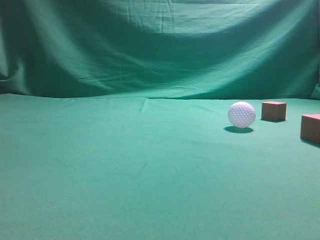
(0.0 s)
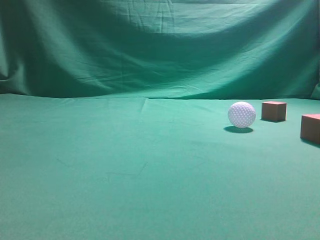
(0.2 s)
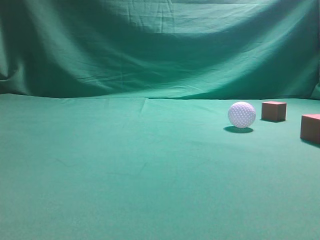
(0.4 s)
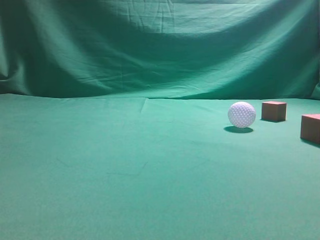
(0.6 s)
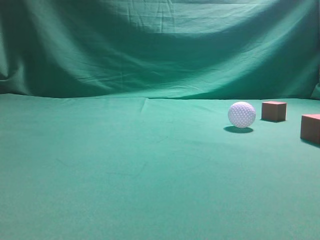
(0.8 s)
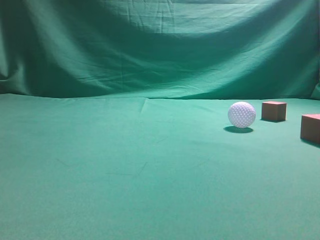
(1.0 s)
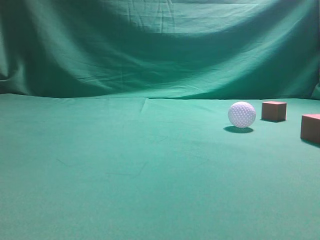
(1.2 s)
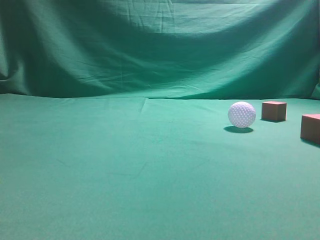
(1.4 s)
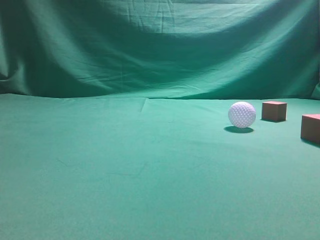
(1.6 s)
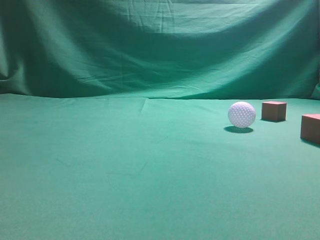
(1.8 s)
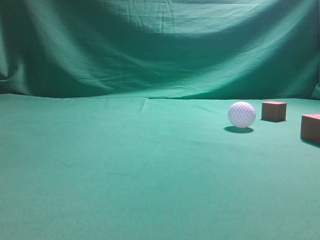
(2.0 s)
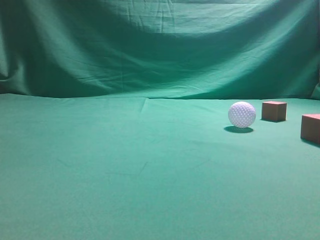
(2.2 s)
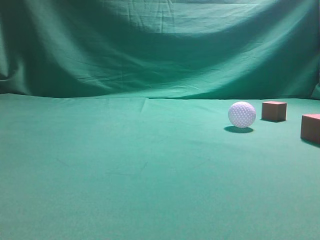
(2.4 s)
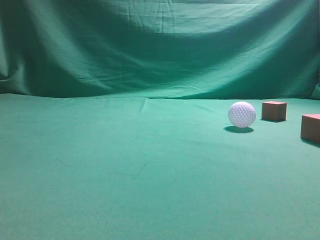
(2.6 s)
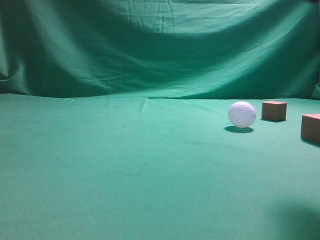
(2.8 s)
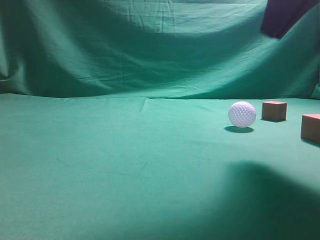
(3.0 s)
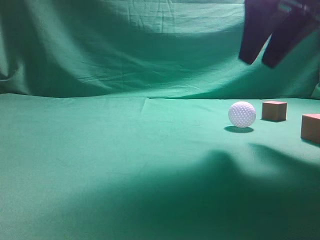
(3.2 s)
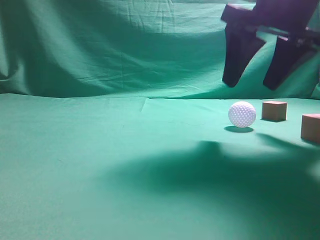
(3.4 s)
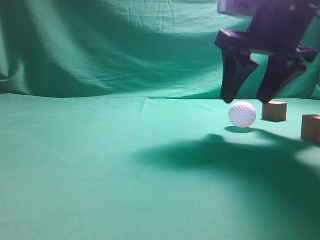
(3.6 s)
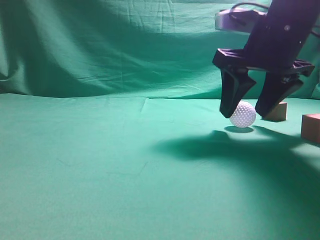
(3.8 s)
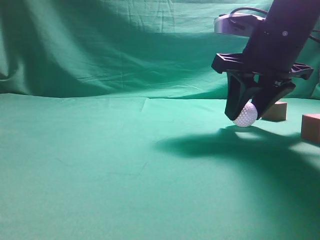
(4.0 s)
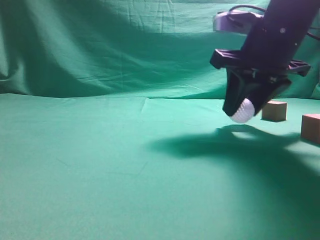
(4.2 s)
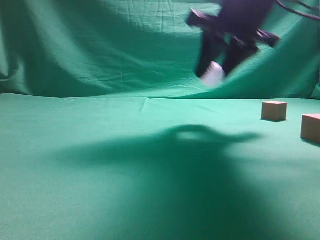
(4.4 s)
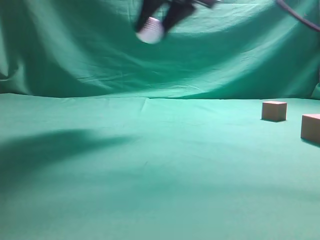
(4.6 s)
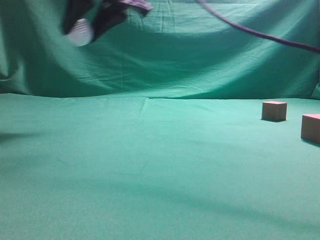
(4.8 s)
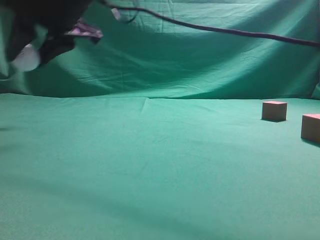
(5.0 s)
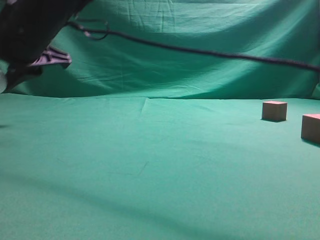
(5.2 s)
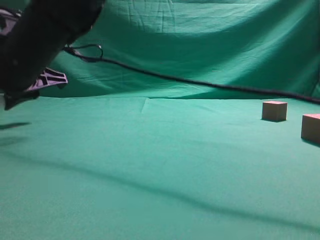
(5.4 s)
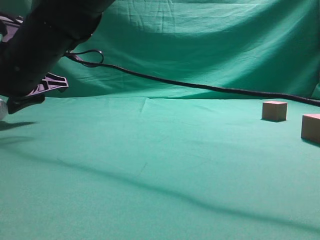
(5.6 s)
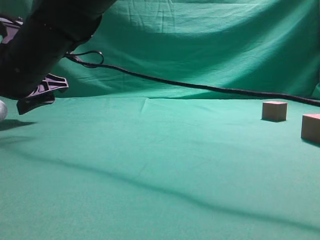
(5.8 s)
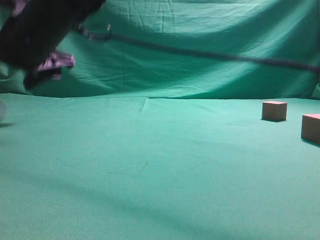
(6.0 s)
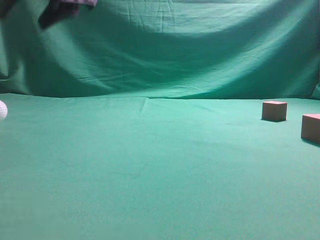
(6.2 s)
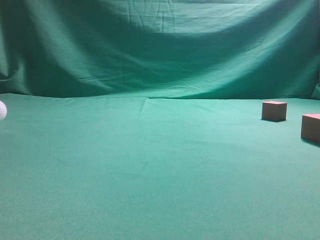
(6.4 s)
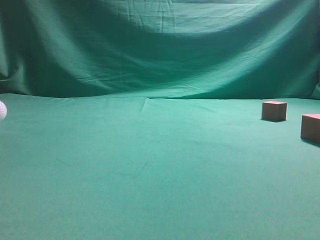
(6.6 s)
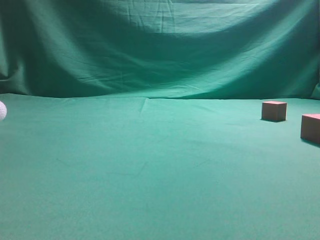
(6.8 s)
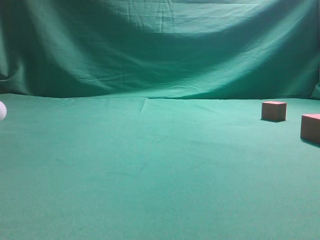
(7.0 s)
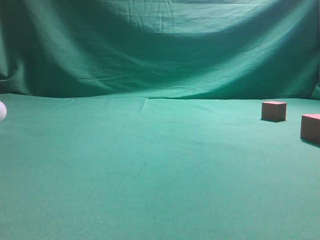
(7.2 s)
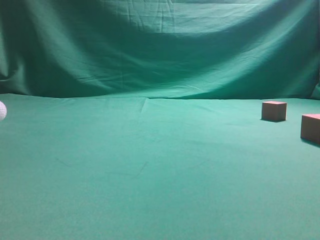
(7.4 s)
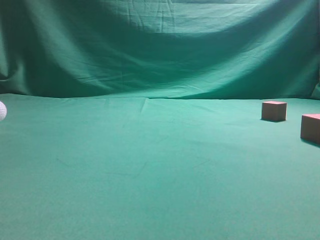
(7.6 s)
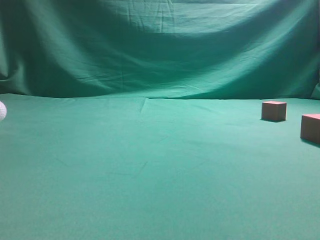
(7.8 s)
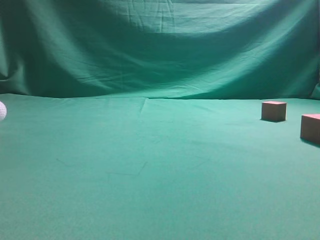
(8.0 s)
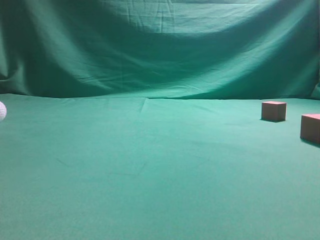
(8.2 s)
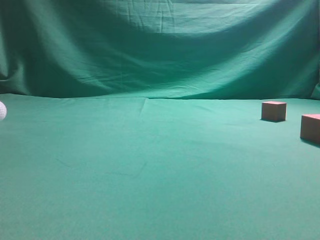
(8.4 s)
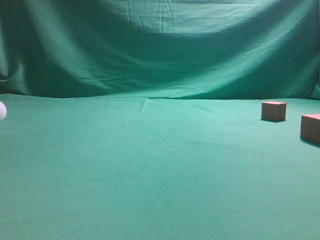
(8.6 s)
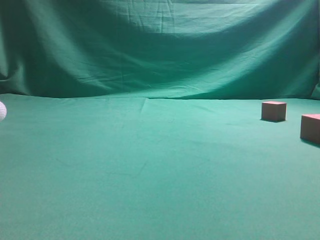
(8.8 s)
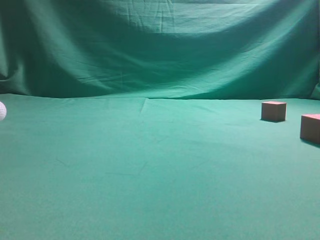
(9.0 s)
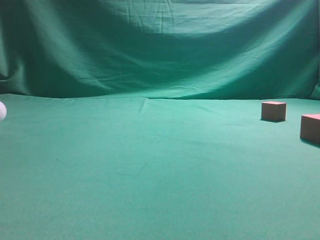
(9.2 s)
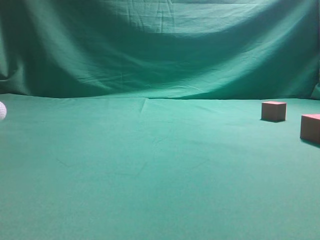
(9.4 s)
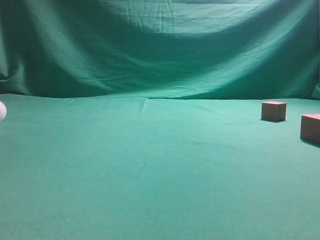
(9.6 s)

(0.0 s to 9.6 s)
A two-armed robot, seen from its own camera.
Step, 0.0 s - 4.2 s: Grasp the spherical object on the right side.
1.6 s - 3.2 s: The right gripper is displaced forward and to the left by roughly 25 cm, and opens up.
3.2 s - 4.8 s: The right gripper is displaced to the left by roughly 20 cm.
4.8 s - 6.4 s: The right gripper heads upward, covering roughly 10 cm, and opens, then closes once more.
